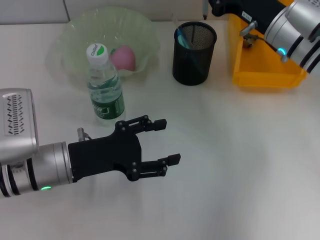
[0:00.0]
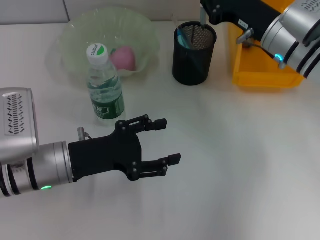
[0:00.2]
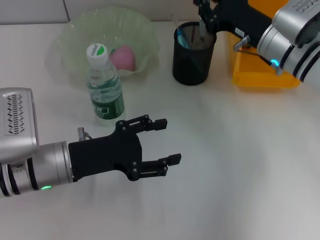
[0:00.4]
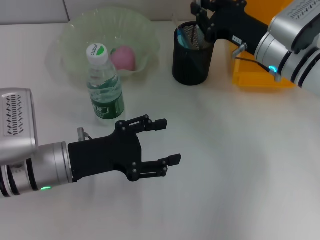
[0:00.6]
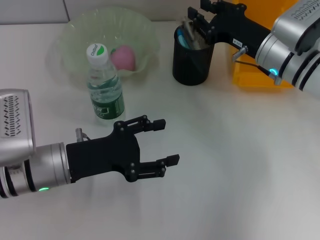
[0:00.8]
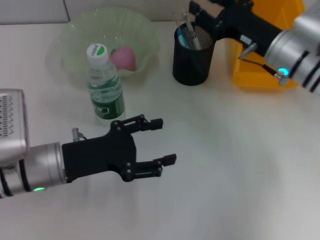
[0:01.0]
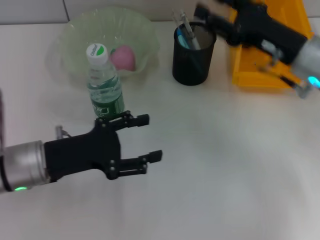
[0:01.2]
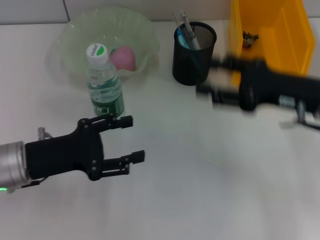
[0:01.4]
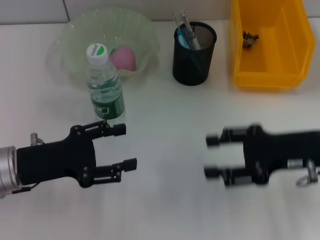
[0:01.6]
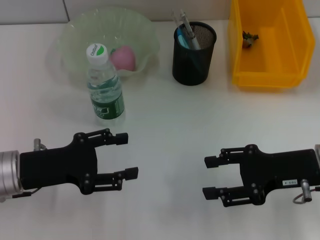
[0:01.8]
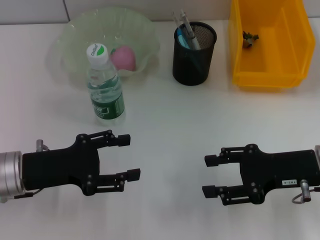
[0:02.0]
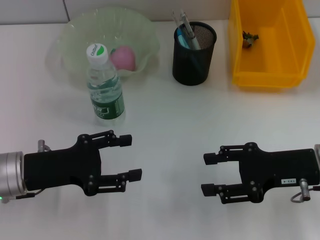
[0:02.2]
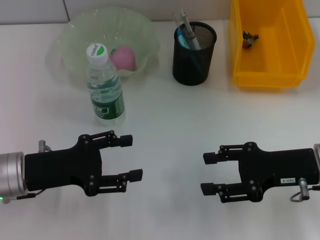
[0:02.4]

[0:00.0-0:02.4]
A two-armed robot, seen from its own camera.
0:00.0 to 0:01.2: The right gripper goes approximately 5 cm backward, and opens its fingers.
0:01.2 to 0:02.4: The right gripper travels backward by approximately 10 cm.
